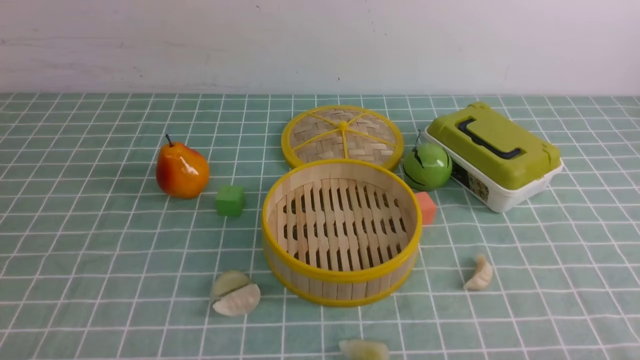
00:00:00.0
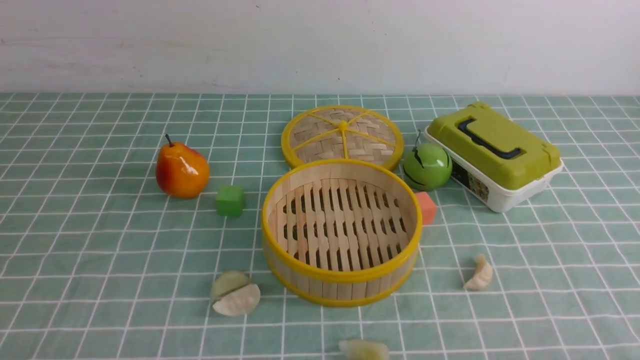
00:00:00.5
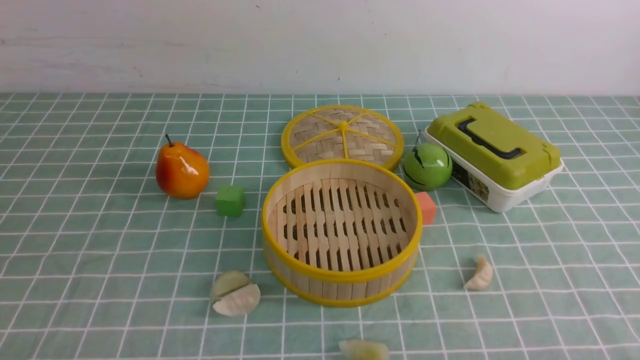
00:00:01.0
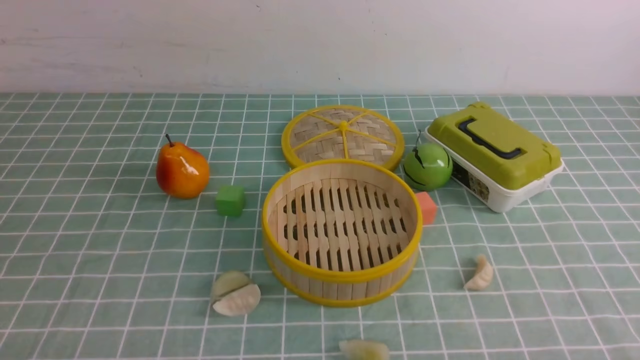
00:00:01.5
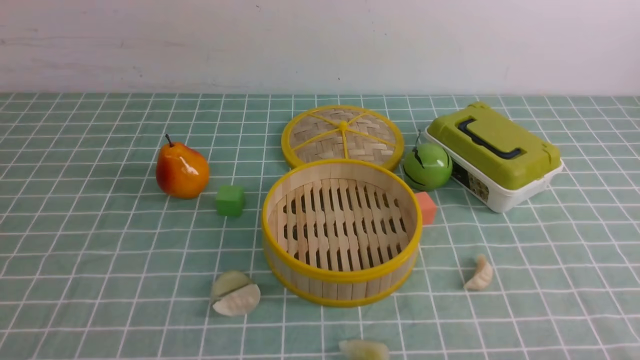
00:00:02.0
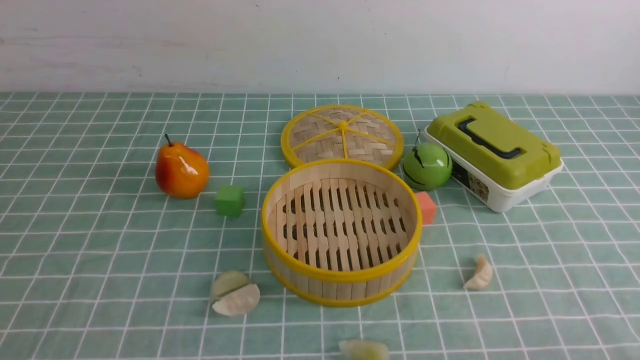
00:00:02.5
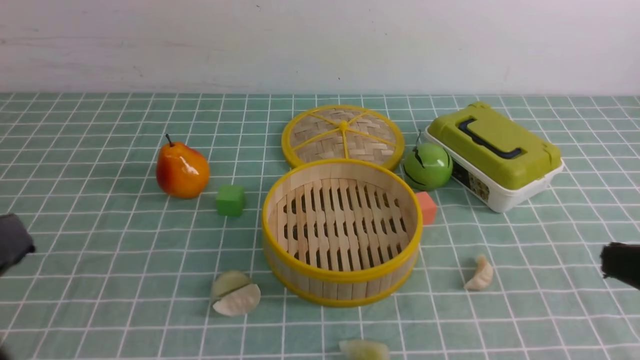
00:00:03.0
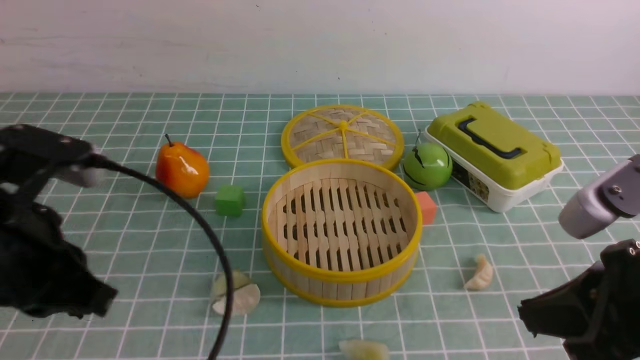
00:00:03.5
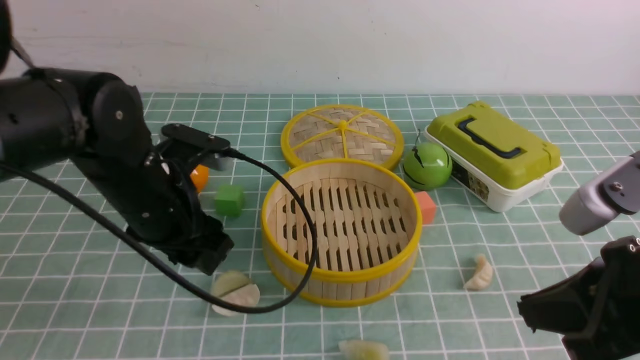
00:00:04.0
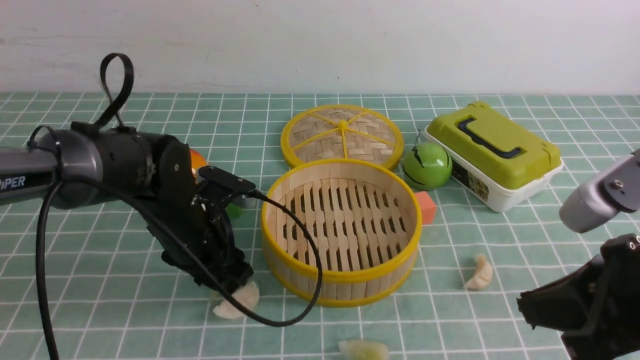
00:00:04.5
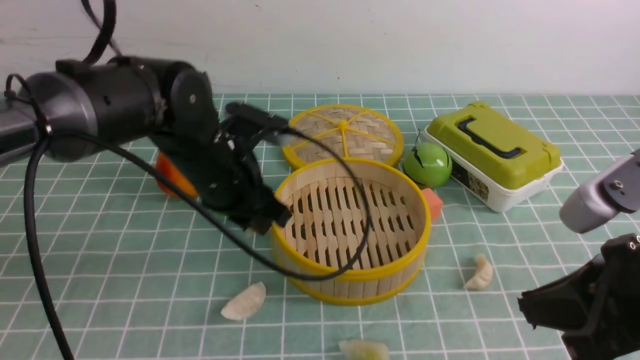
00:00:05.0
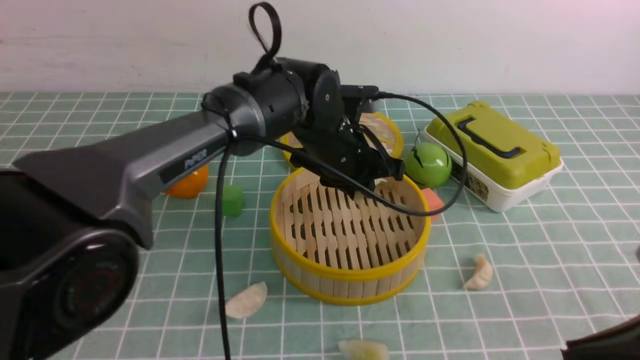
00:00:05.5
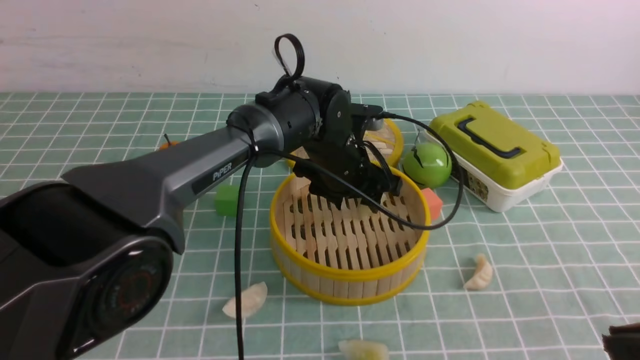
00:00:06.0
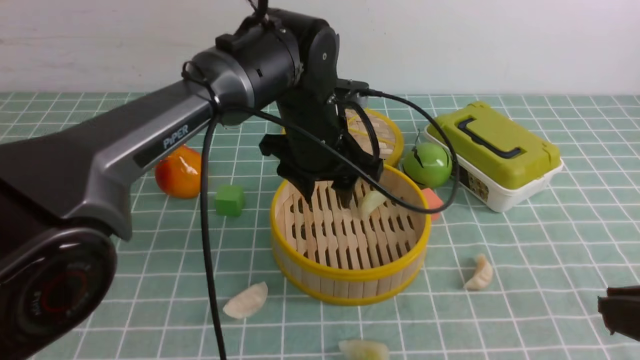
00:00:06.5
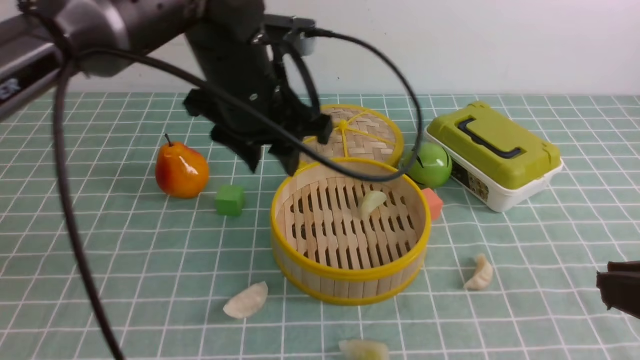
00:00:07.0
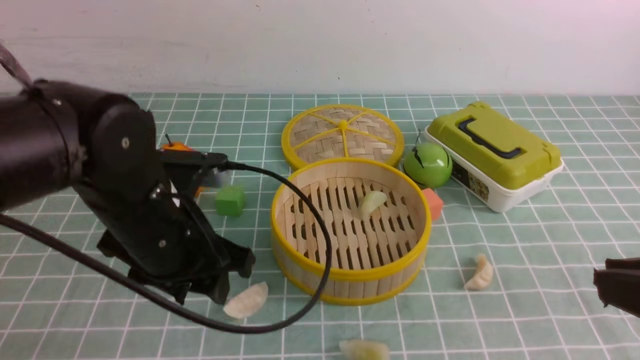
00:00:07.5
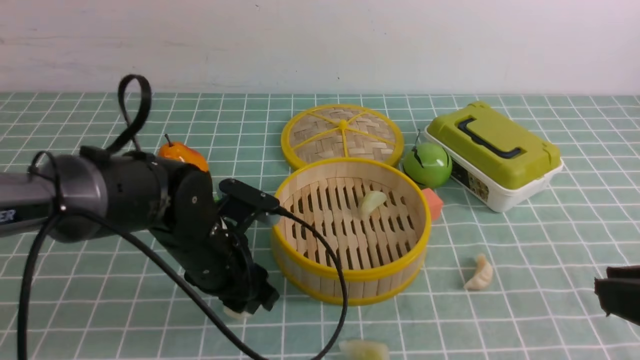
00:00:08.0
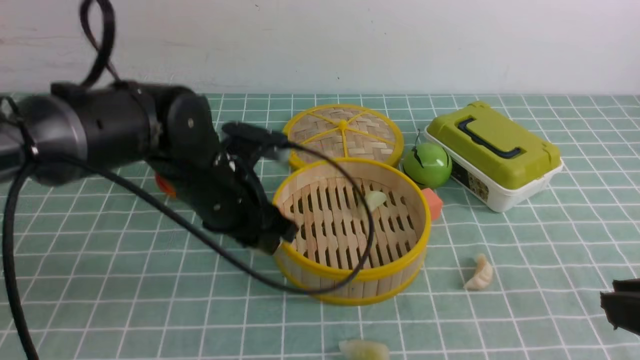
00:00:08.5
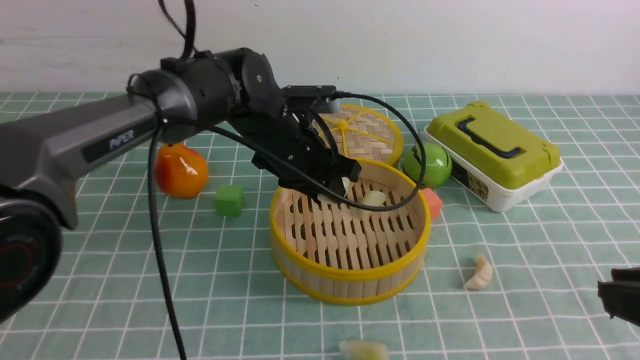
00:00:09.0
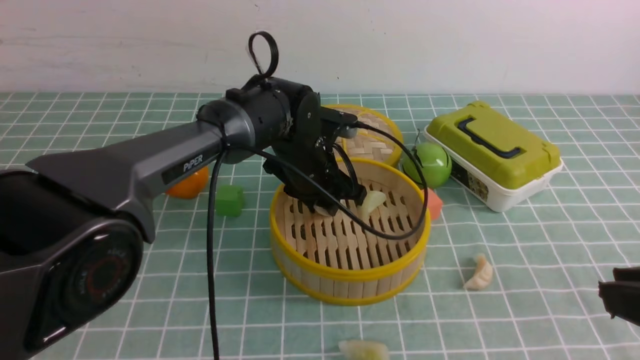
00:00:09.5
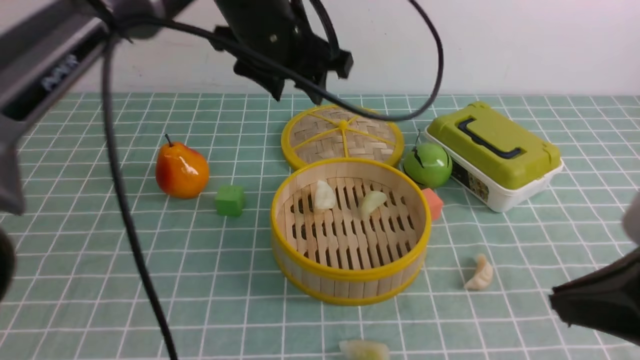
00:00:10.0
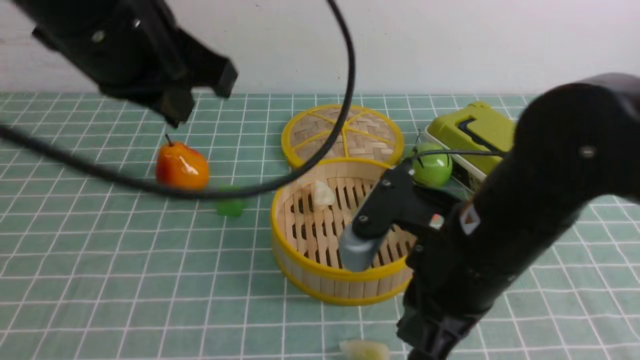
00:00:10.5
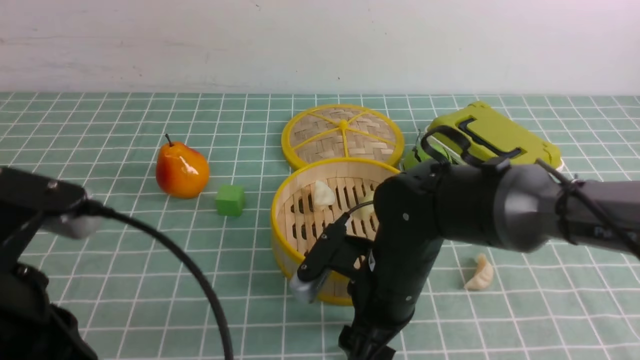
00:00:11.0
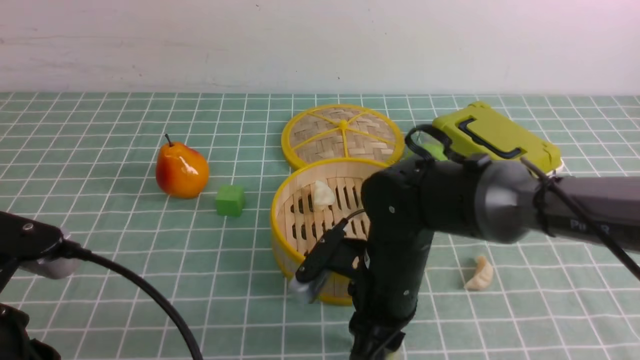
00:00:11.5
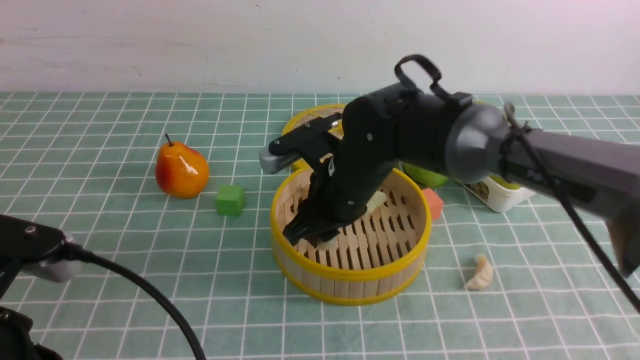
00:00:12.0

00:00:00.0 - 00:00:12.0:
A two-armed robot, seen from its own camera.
Task of the whole recording: put the dumplings into the steamer on the table with the blue tablecloth.
Step, 00:00:00.0 - 00:00:05.0: use the left arm to grab a dumpling.
Step, 00:00:05.5 - 00:00:06.0: use the left arm to put the dumpling into the steamer.
Step, 00:00:06.5 - 00:00:08.5: use the left arm to grab a dumpling.
Step, 00:00:09.0 - 00:00:09.5: use the left arm to put the dumpling into the steamer.
Step, 00:00:10.0 - 00:00:11.5: use the right arm to grab a dumpling.
00:00:02.0 - 00:00:04.0: The left gripper shifts approximately 30 cm forward and to the right, and closes, then opens again. The right gripper is displaced upward, forward and to the left by some 20 cm, and closes its fingers.
00:00:04.0 - 00:00:06.0: The right gripper shifts approximately 5 cm backward, while the left gripper is displaced to the right and forward by some 20 cm, and closes, then reopens.
00:00:06.0 - 00:00:08.0: The left gripper shifts some 20 cm to the left and backward, and moves roughly 10 cm upward and comes back.
00:00:08.0 - 00:00:10.0: The left gripper shifts about 20 cm upward.
00:00:10.0 - 00:00:12.0: The right gripper moves forward, to the left and downward, approximately 30 cm, and opens. Meanwhile the left gripper goes approximately 30 cm backward and to the left, and closes its fingers.

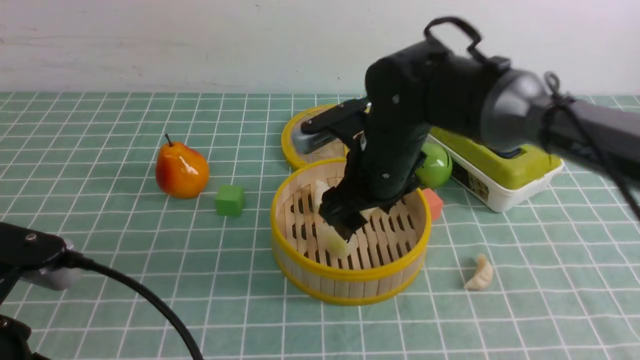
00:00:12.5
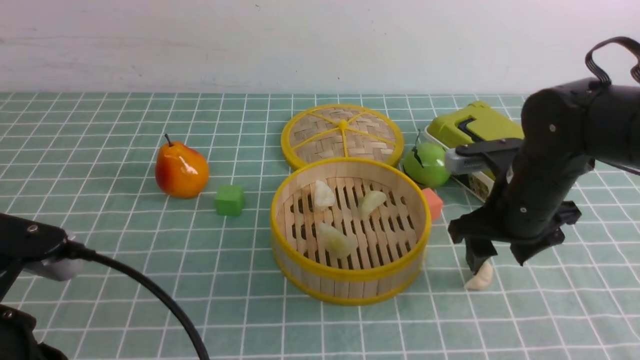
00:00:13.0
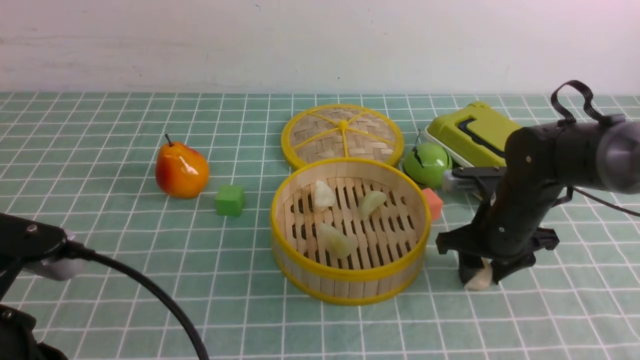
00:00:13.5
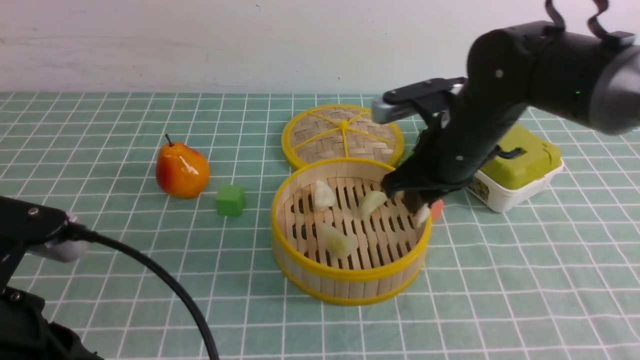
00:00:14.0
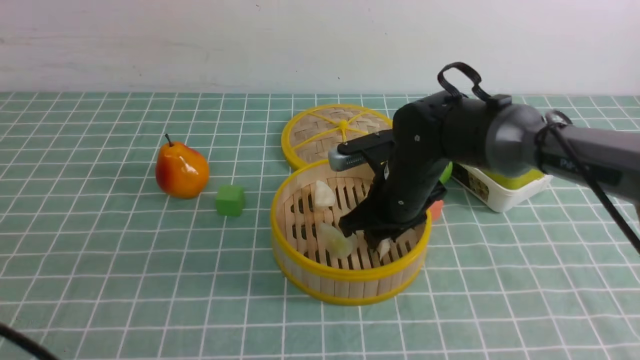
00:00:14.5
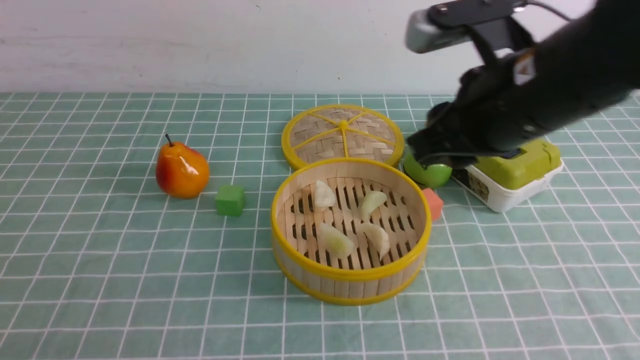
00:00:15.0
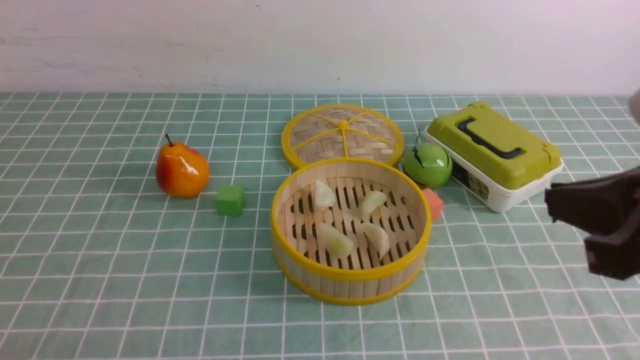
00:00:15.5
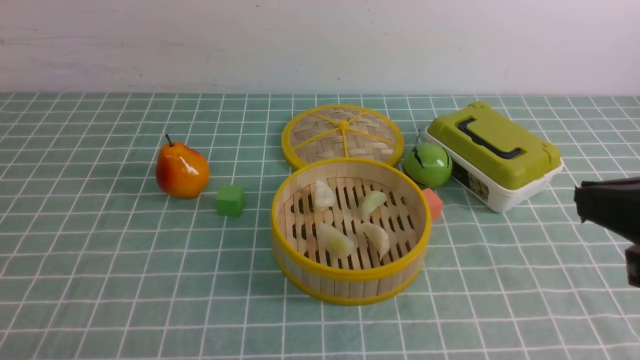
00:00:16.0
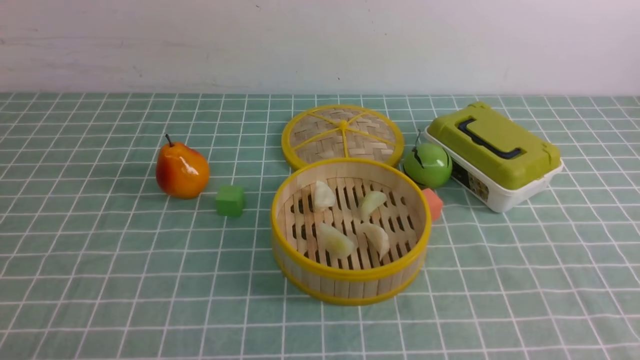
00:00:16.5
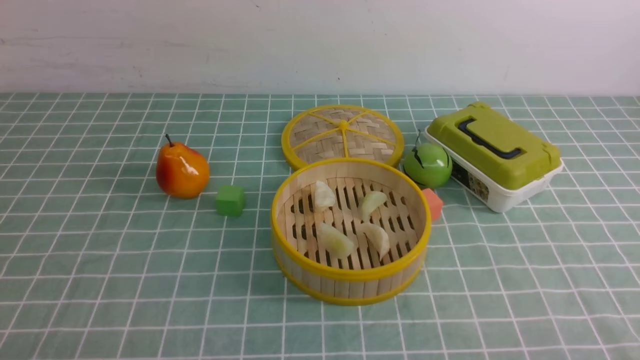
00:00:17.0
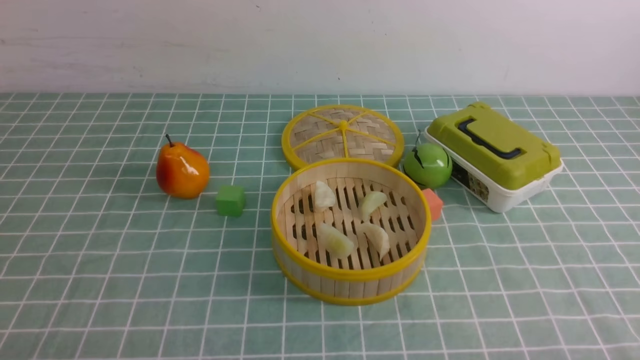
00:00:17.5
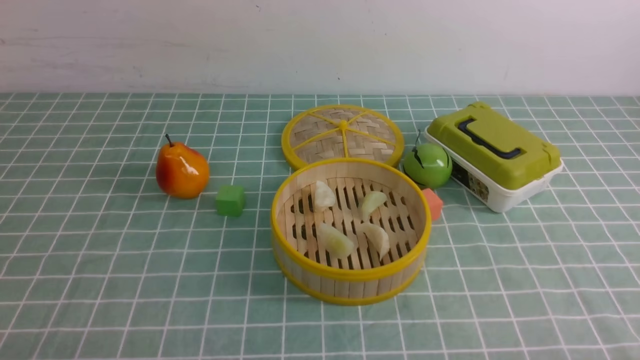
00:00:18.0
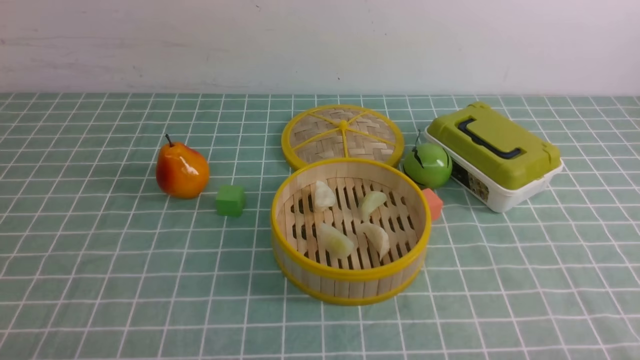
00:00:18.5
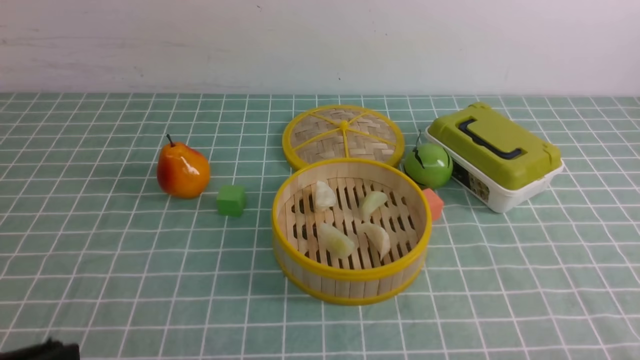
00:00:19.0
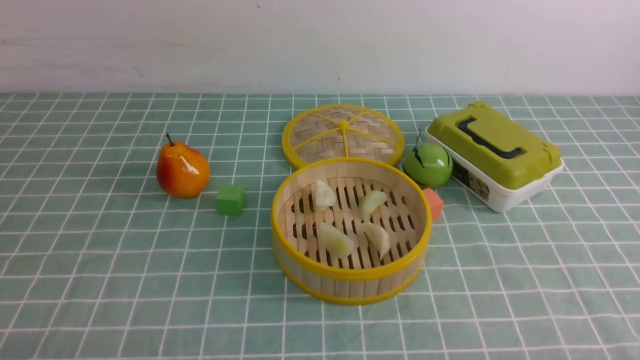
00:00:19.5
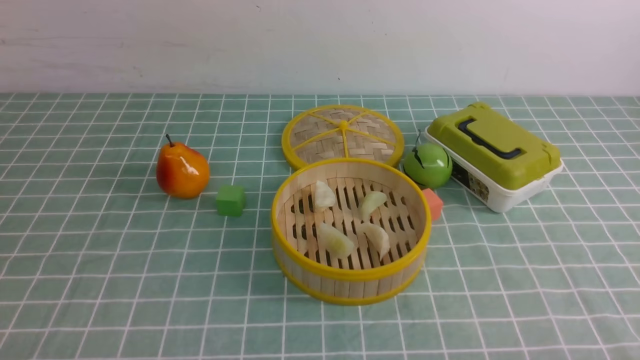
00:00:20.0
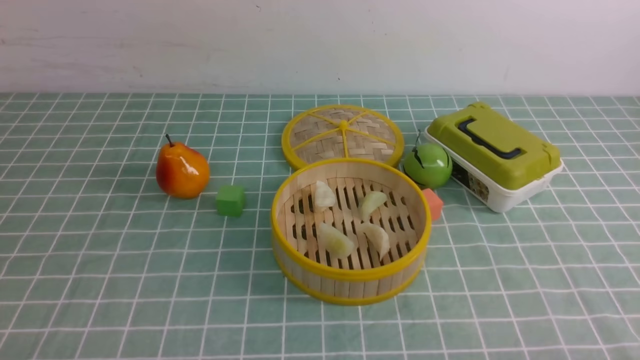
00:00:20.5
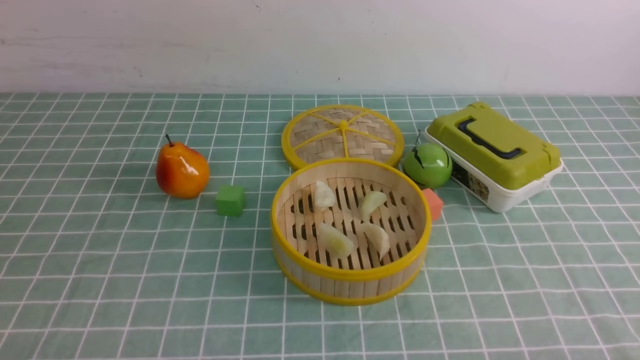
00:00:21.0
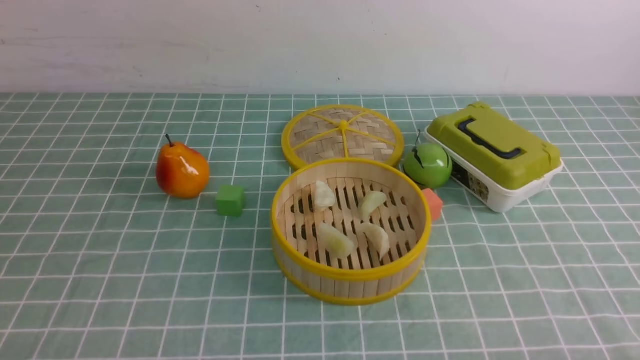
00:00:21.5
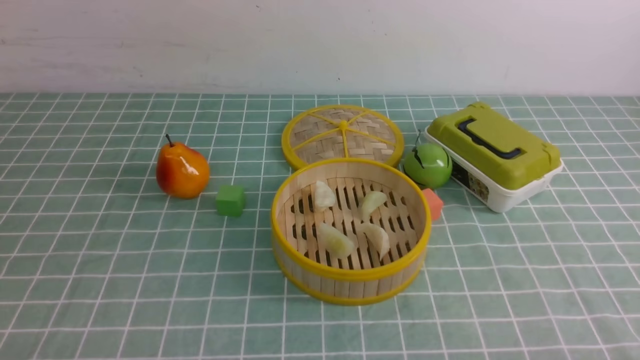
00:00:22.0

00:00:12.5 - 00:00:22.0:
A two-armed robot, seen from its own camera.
Task of the whole recording: put the dumplings into the steamer on the table with the blue tablecloth.
Step, 00:00:13.0 - 00:00:13.5: use the right arm to grab a dumpling.
Step, 00:00:14.0 - 00:00:14.5: use the right arm to put the dumpling into the steamer.
00:00:12.5 - 00:00:14.5: The right gripper travels to the right and back again, some 15 cm each way, and closes.
00:00:14.5 - 00:00:16.5: The right gripper goes approximately 35 cm backward and to the right, and closes up.
00:00:20.0 - 00:00:22.0: The two grippers keep their place.
